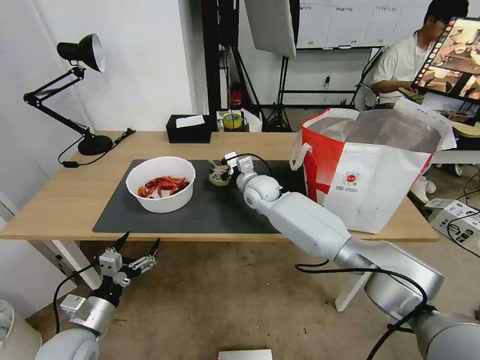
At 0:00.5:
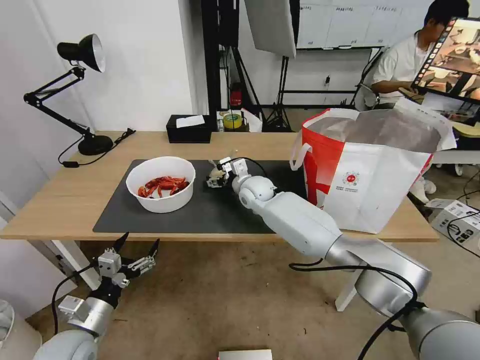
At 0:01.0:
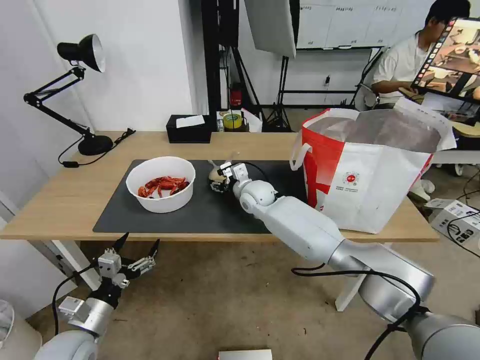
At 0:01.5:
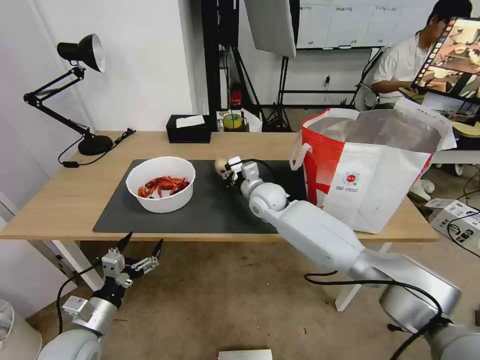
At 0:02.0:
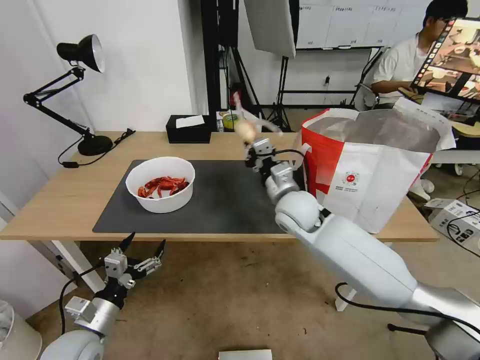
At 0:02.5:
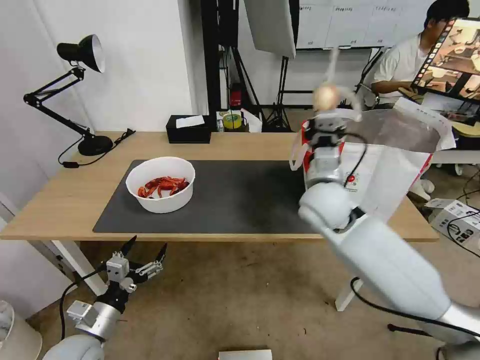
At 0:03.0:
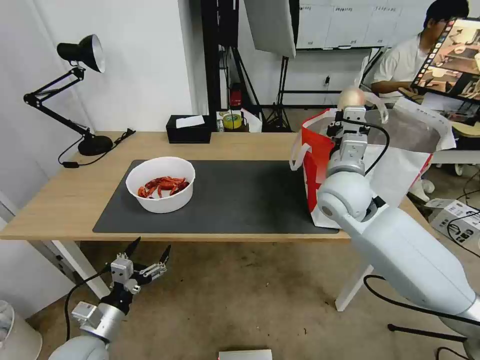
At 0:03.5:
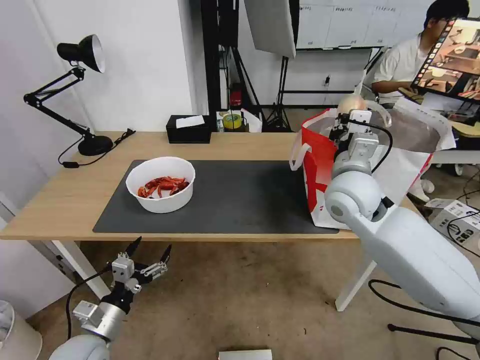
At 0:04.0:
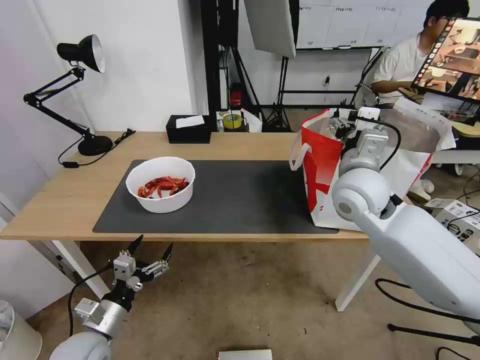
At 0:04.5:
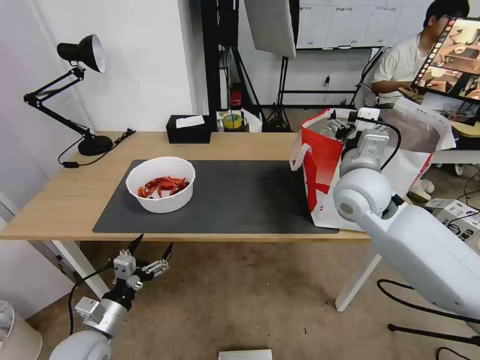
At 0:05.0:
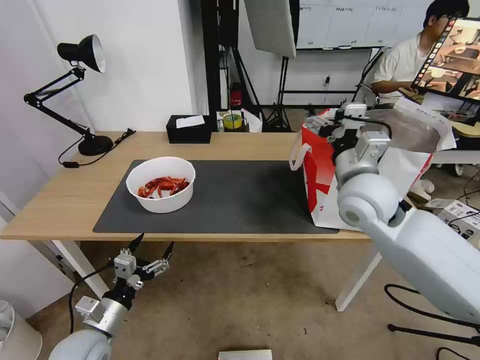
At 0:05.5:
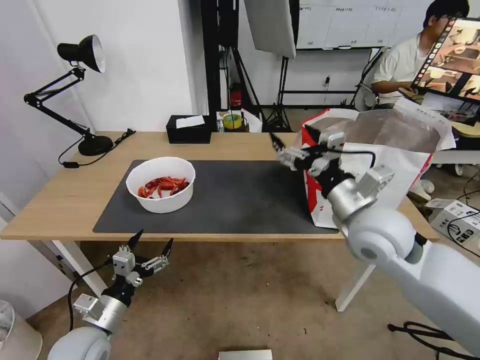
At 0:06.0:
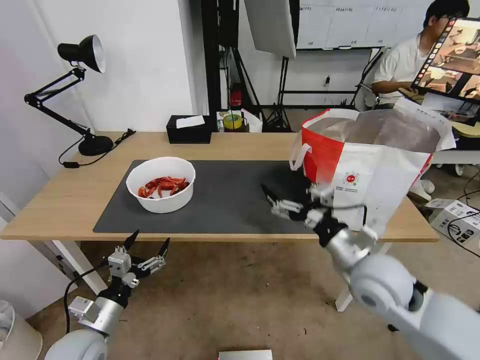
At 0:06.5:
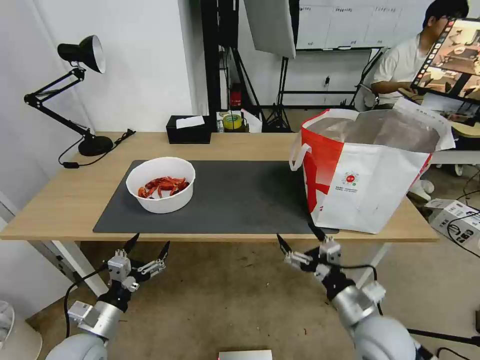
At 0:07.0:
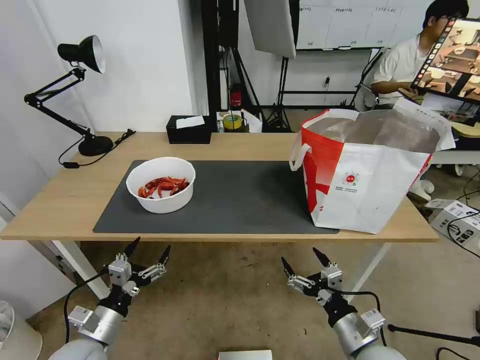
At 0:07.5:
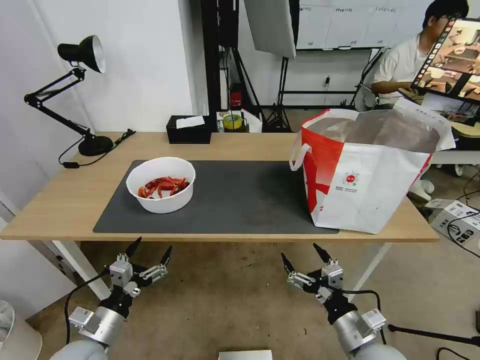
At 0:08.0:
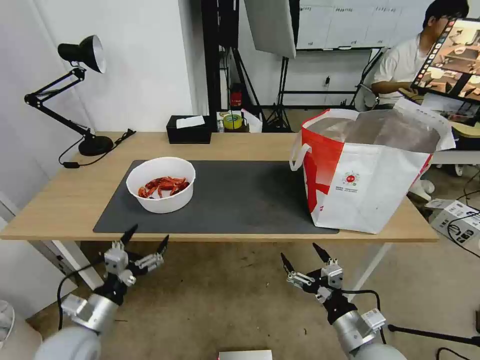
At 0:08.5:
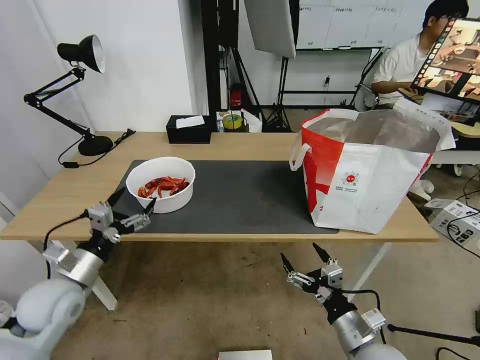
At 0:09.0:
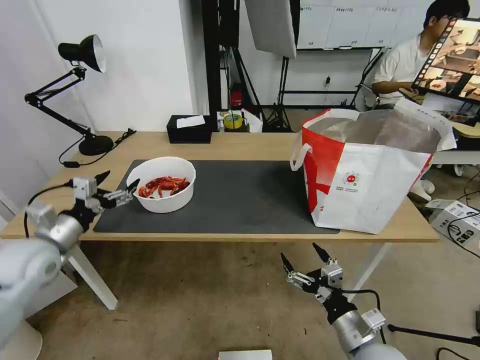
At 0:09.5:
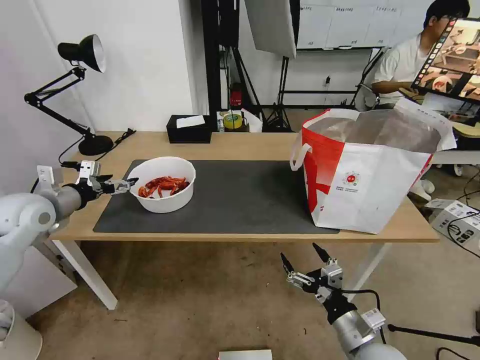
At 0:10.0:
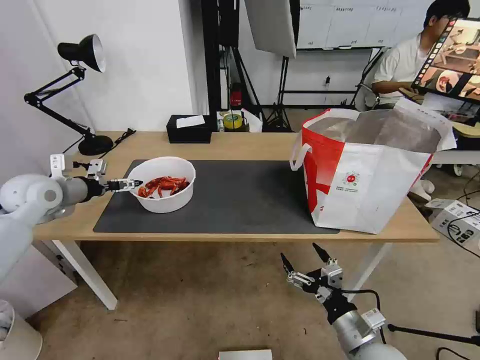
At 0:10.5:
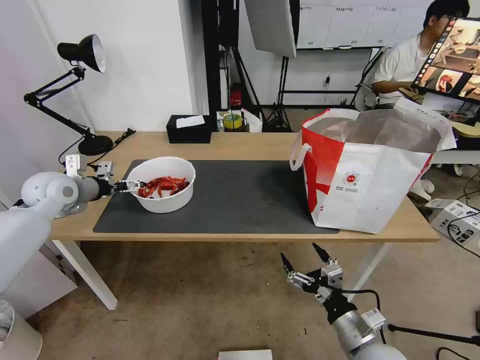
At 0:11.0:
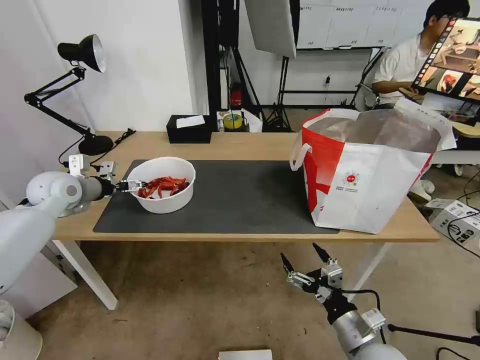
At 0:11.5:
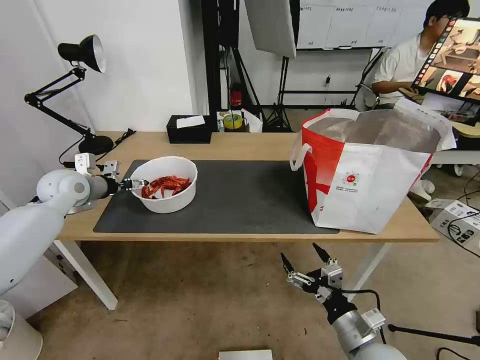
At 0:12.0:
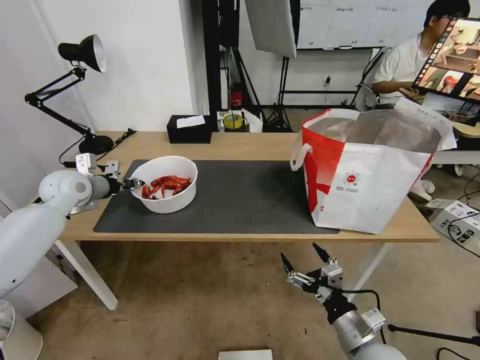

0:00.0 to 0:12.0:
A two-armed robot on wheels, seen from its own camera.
Task of the whole recording: Pick up the trash from the table and place it into the takeout bag.
0:00.0 to 0:02.0: The right gripper shifts roughly 15 cm backward and to the right, and closes.
0:02.0 to 0:04.0: The right gripper shifts some 15 cm upward and to the right, and opens up.
0:04.0 to 0:06.0: The right gripper is displaced backward and downward by roughly 15 cm.
0:06.0 to 0:08.0: The right gripper is displaced downward and backward by about 15 cm.
0:08.0 to 0:10.0: The left gripper shifts approximately 30 cm forward, upward and to the left.
0:10.0 to 0:12.0: The left gripper ends up approximately 5 cm from where it was, and closes.

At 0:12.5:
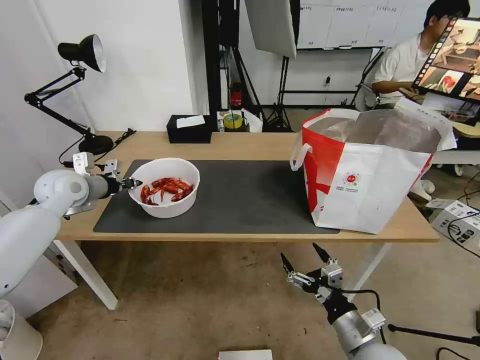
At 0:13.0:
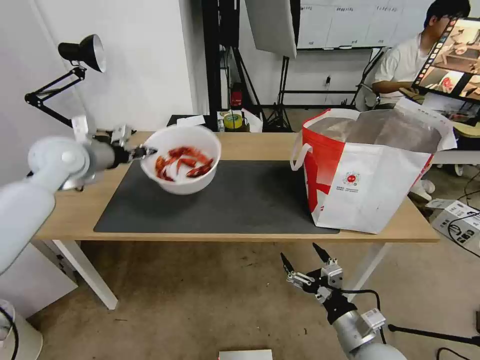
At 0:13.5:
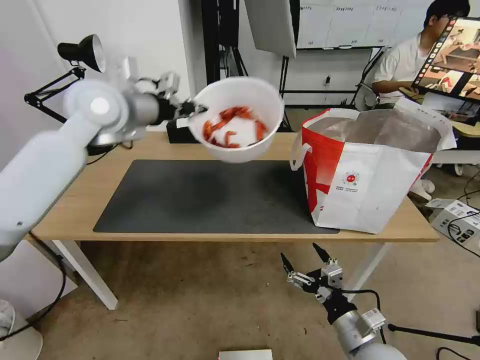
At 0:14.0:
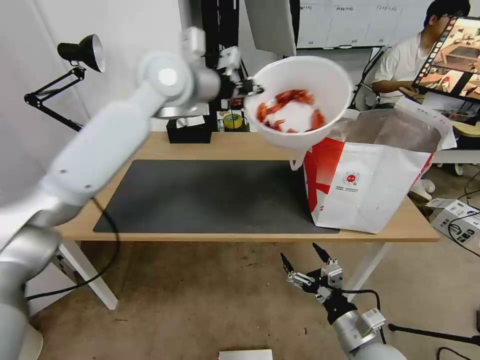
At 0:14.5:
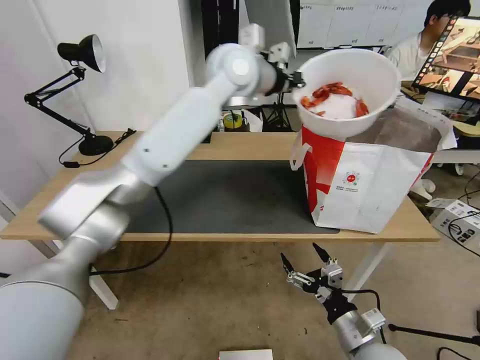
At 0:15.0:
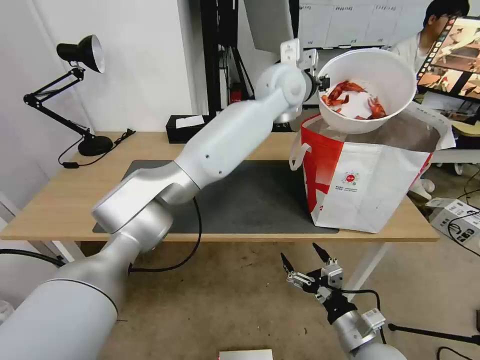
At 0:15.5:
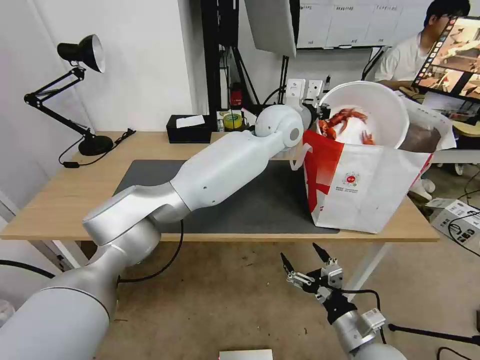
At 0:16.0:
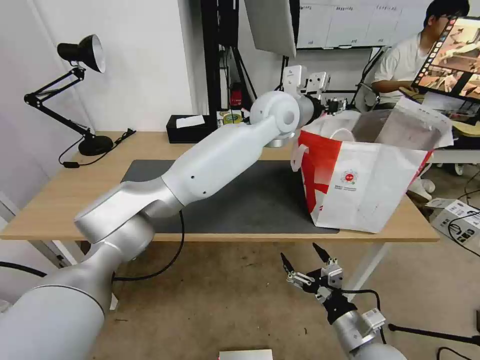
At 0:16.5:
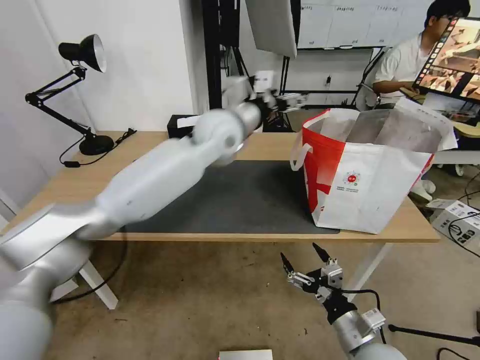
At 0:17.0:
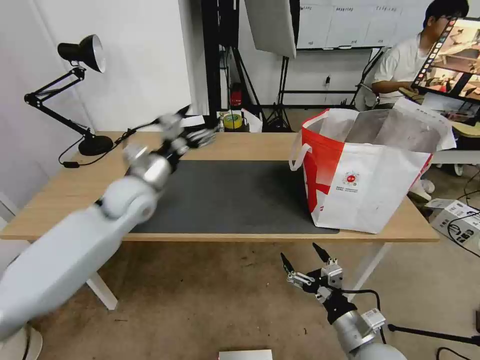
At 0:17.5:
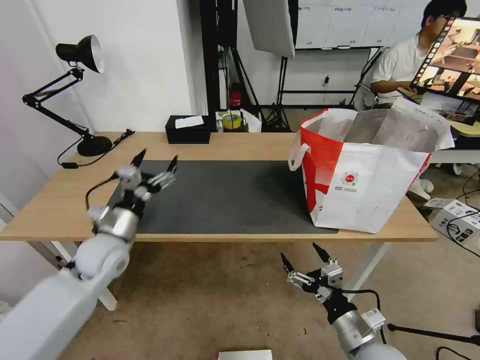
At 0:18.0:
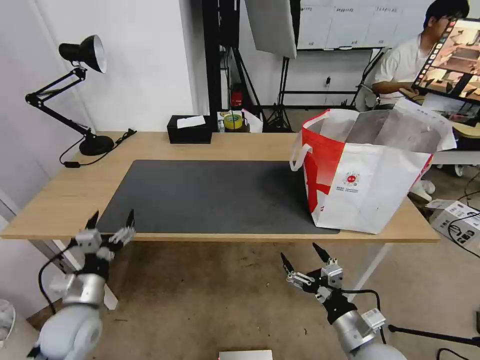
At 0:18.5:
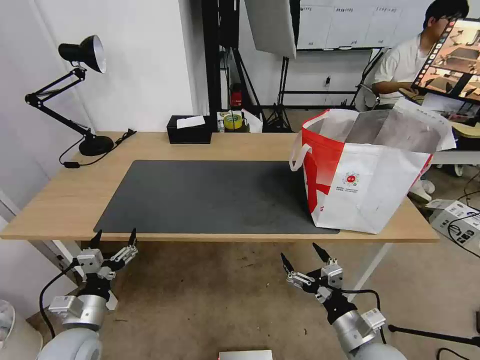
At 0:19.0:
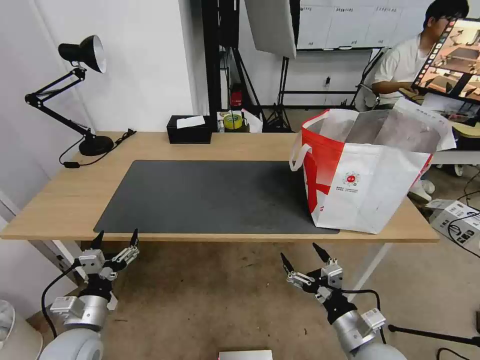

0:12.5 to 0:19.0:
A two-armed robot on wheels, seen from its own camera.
Task of the whole recording: Pick up the trash from the table and place it into the takeout bag.
0:12.5 to 0:14.5: The left gripper travels to the right and upward by approximately 40 cm.
0:14.5 to 0:17.0: The left gripper goes about 30 cm downward, to the left and backward, and opens.
0:17.0 to 0:19.0: The left gripper shifts about 30 cm backward, downward and to the left.

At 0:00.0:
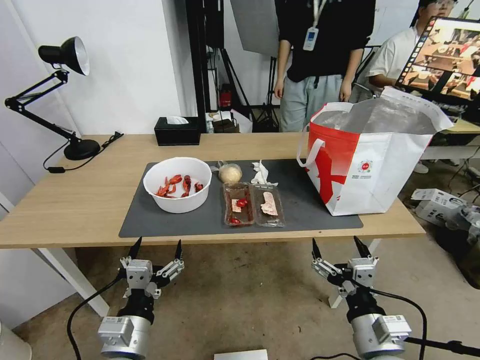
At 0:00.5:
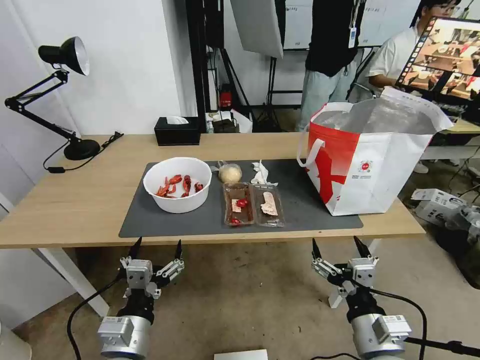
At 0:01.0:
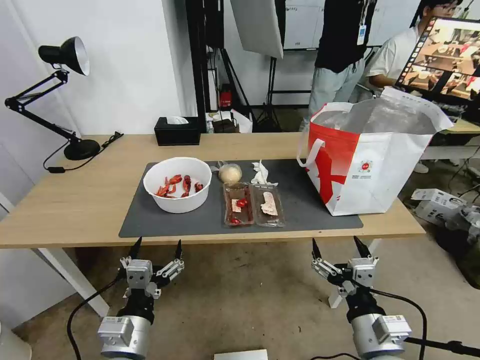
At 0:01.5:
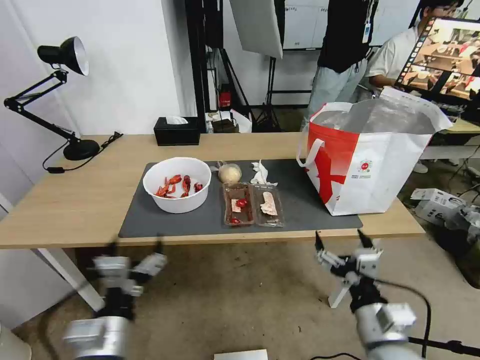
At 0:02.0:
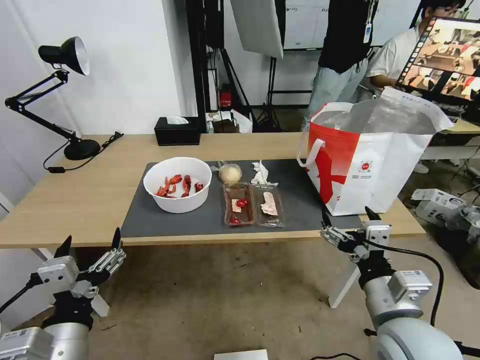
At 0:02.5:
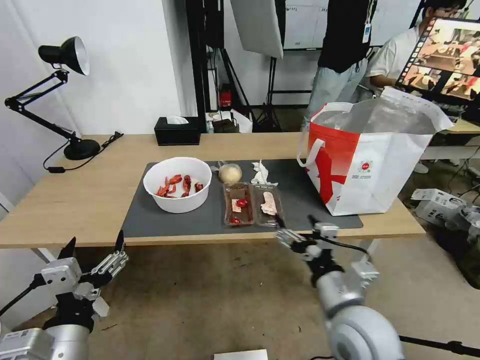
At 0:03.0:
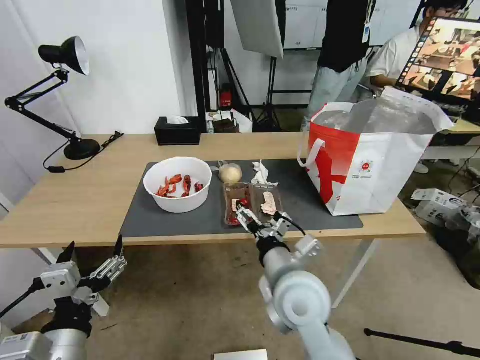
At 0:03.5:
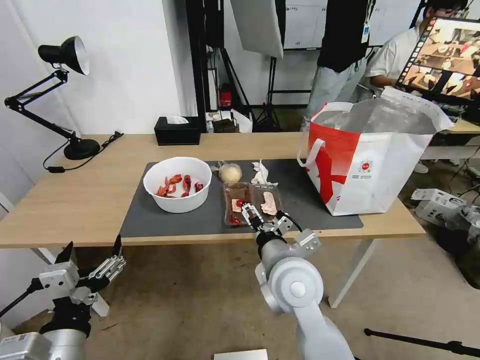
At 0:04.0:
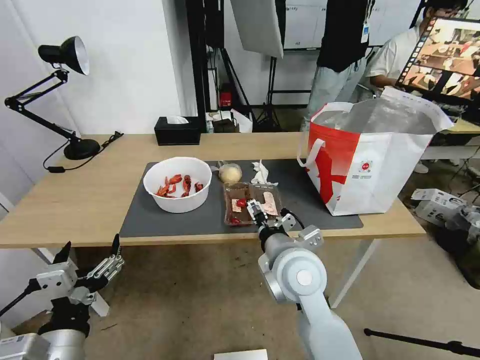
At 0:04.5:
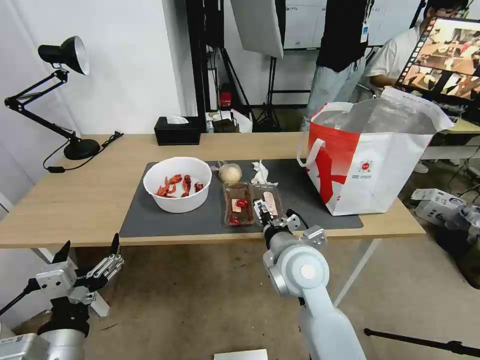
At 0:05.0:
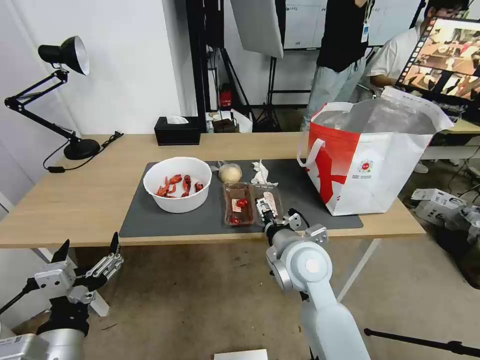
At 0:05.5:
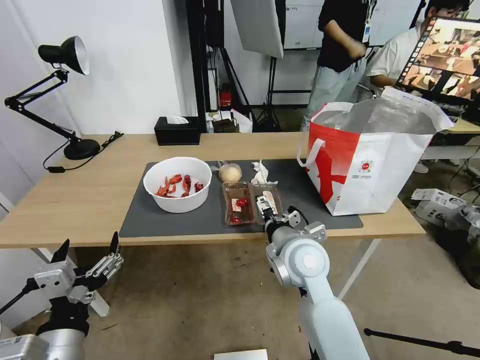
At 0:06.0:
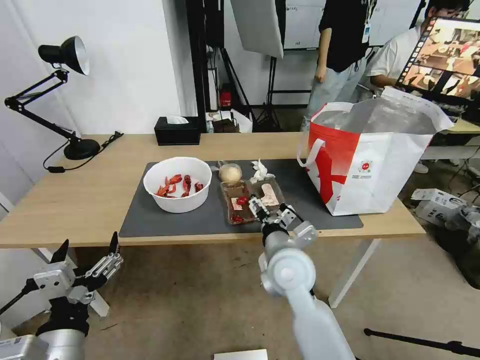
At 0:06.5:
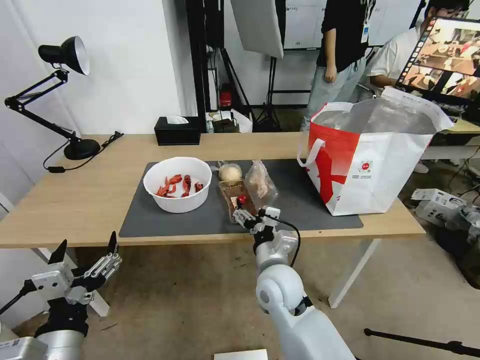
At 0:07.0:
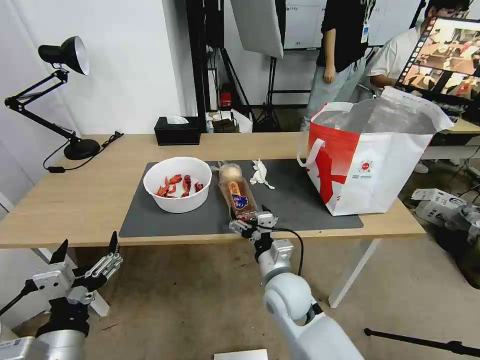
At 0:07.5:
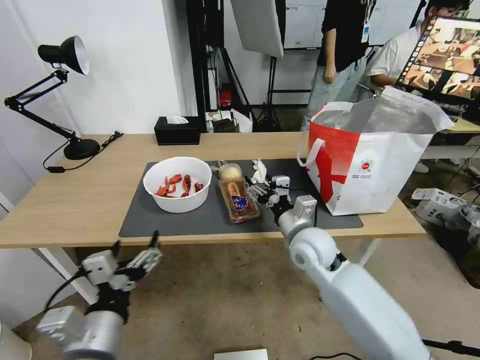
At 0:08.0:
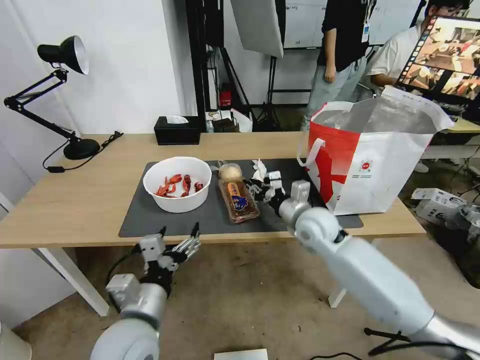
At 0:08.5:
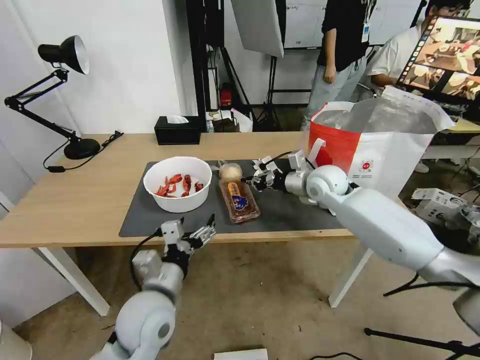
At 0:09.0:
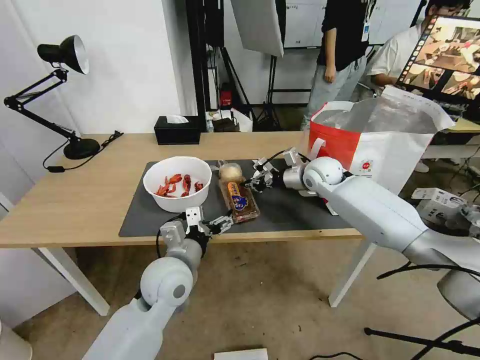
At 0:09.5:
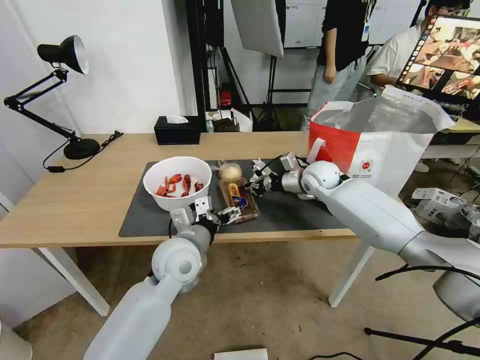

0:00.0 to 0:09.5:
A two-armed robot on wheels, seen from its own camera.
Task of the whole recording: Pick up the trash from the table and place it into the takeout bag.
0:02.0 to 0:04.0: The right gripper shifts approximately 20 cm to the left and forward.
0:04.0 to 0:05.5: The grippers move only a little.
0:05.5 to 0:07.5: The left gripper moves about 5 cm; the right gripper moves forward, some 5 cm.
0:07.5 to 0:09.5: The right gripper heads forward, covering approximately 20 cm, and closes up, while the left gripper moves forward and to the right, approximately 20 cm.
